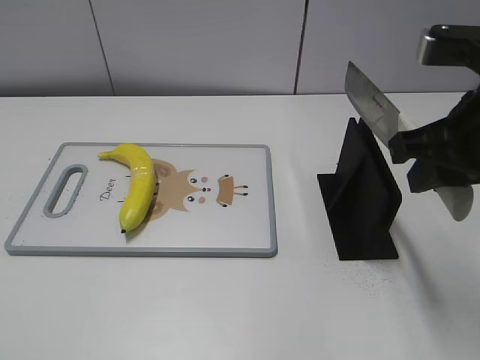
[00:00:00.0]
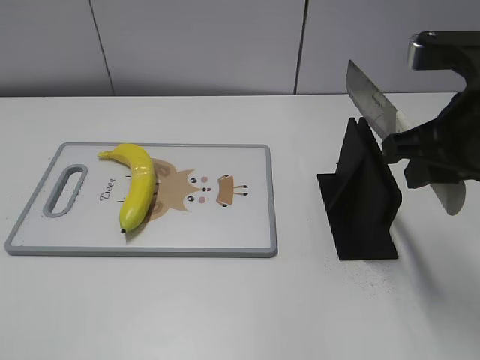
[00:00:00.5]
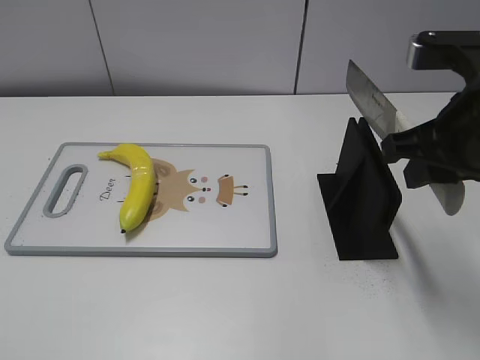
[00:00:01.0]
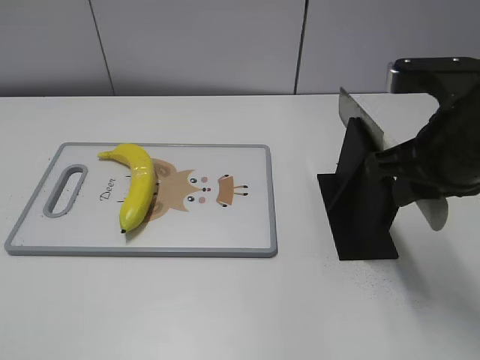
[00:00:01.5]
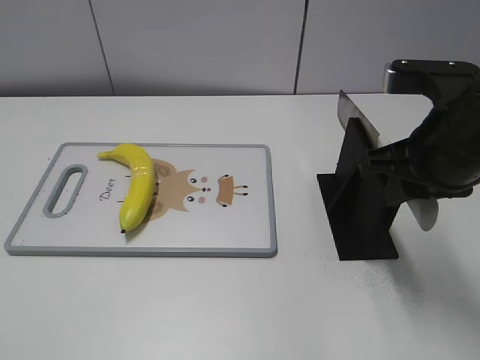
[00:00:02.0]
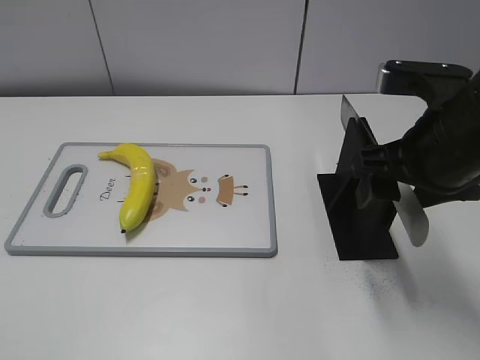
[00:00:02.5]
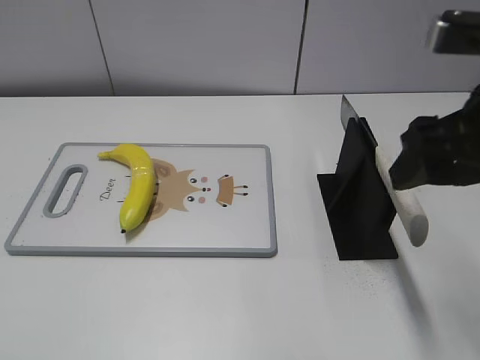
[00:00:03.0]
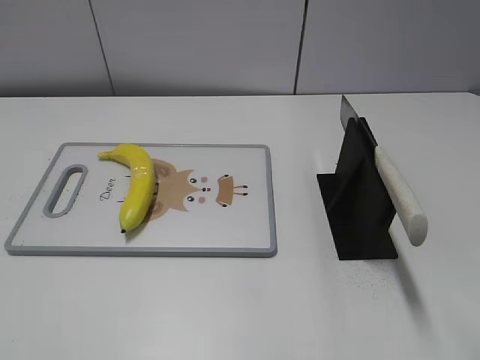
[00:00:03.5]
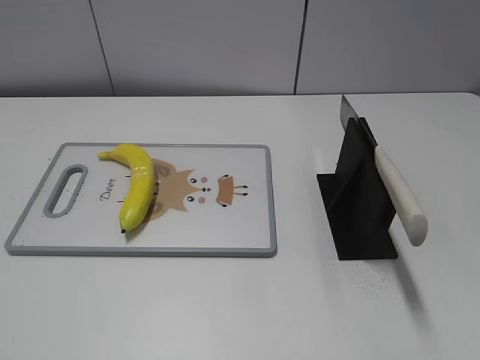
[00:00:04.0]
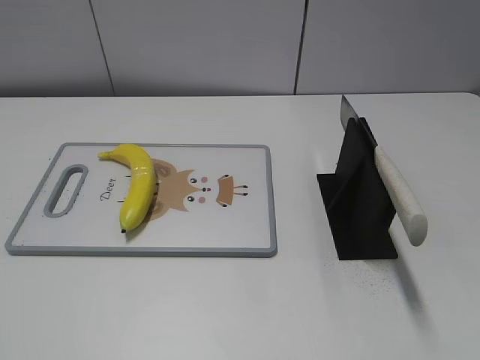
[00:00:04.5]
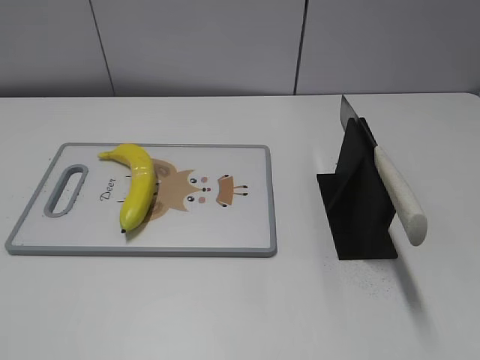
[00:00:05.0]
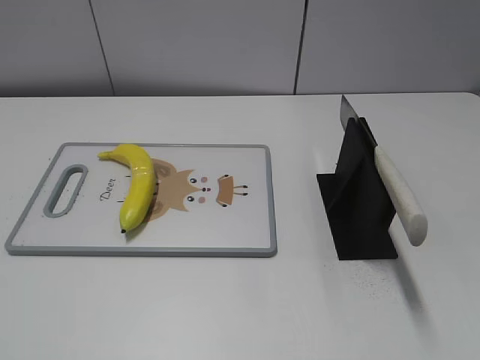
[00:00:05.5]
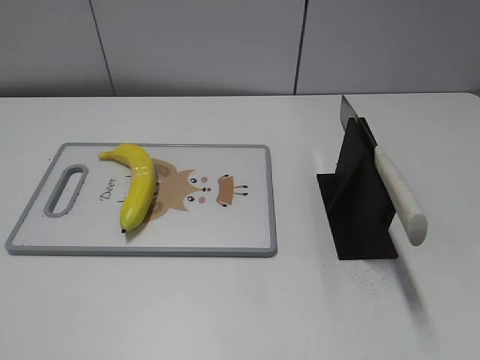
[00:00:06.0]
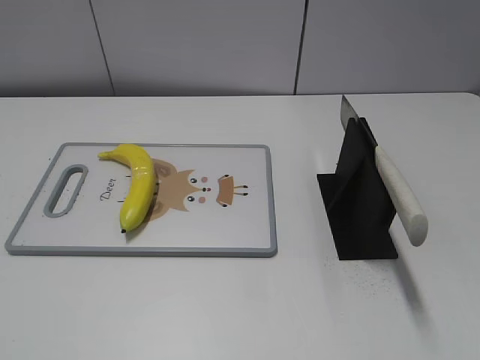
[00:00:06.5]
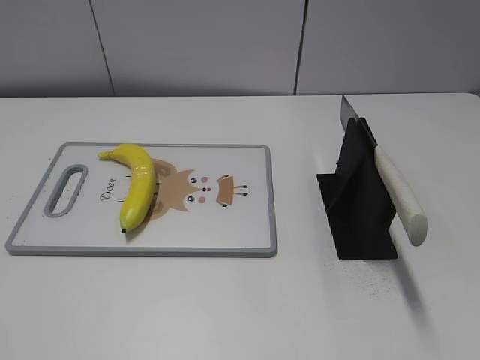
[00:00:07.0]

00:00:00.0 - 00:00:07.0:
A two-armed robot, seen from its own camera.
Task of the whole recording: cut plastic banana.
Step, 00:00:00.0 - 00:00:07.0: Place the knife on the storage rack with your right hand.
00:00:00.0 - 00:00:02.0: The grippers stay close to where they were, moving slightly.
00:00:02.0 - 00:00:03.5: The right gripper goes approximately 15 cm upward and backward, and opens up.

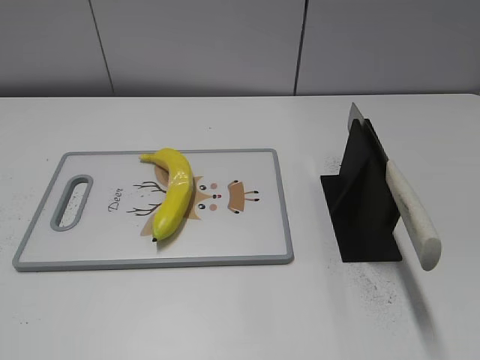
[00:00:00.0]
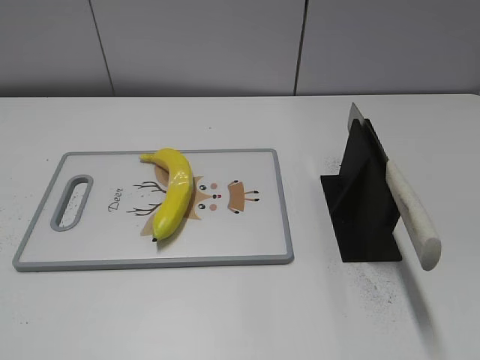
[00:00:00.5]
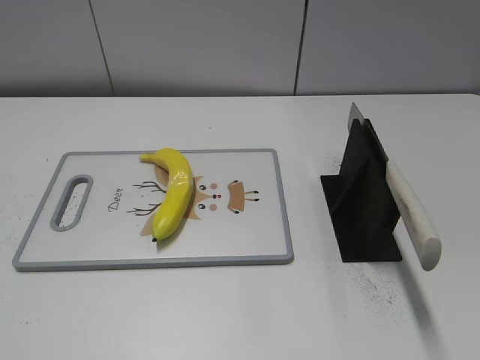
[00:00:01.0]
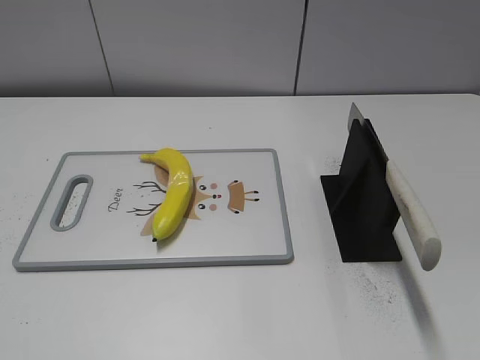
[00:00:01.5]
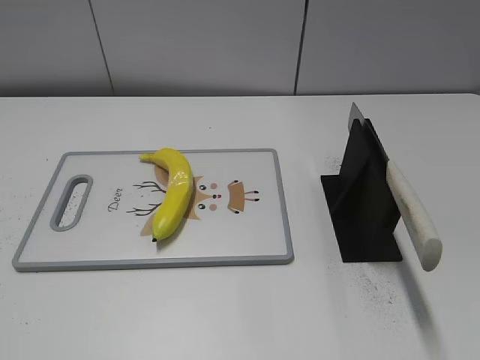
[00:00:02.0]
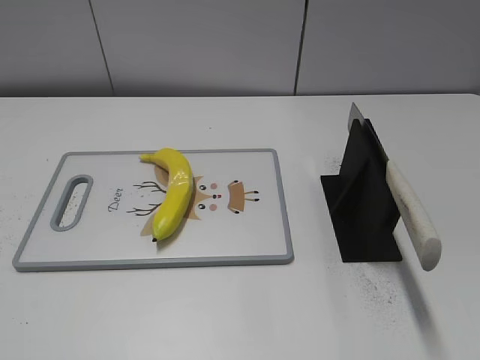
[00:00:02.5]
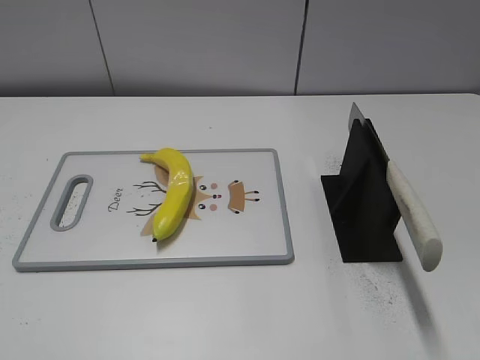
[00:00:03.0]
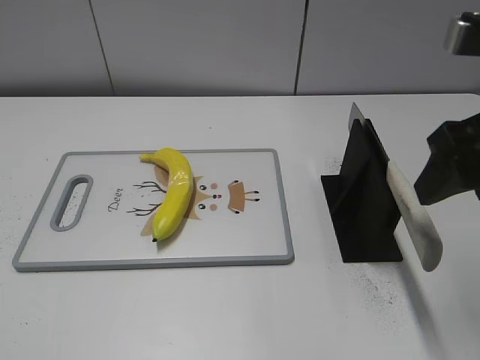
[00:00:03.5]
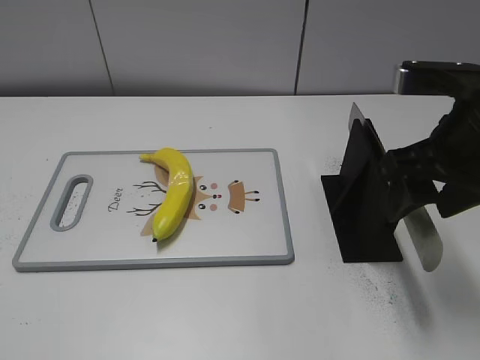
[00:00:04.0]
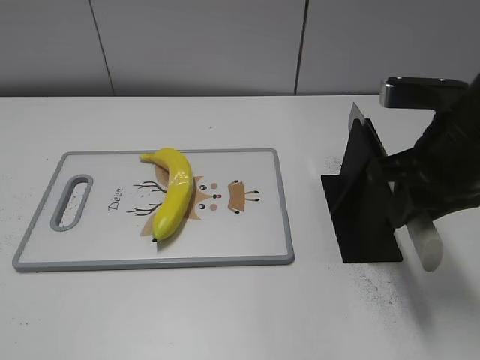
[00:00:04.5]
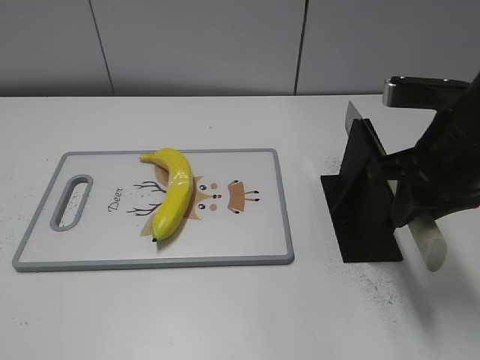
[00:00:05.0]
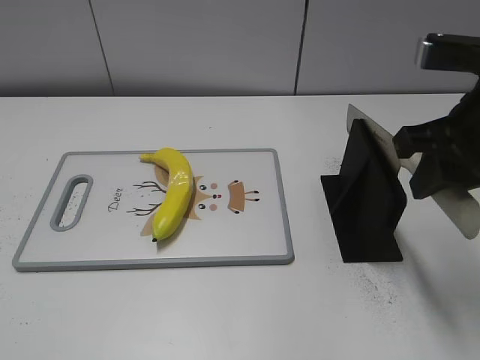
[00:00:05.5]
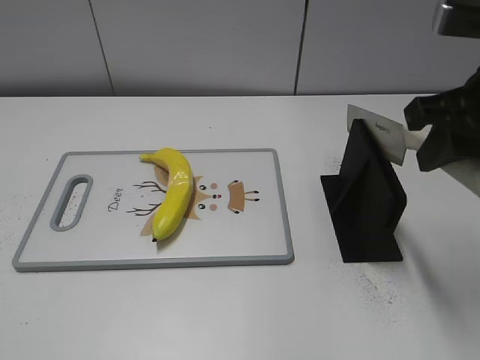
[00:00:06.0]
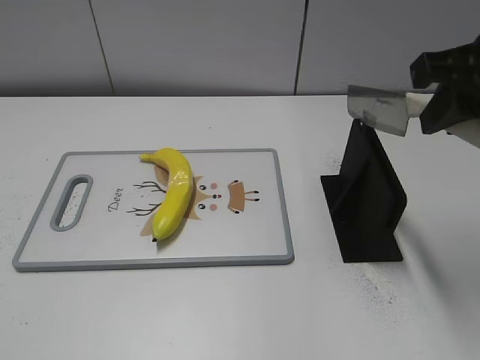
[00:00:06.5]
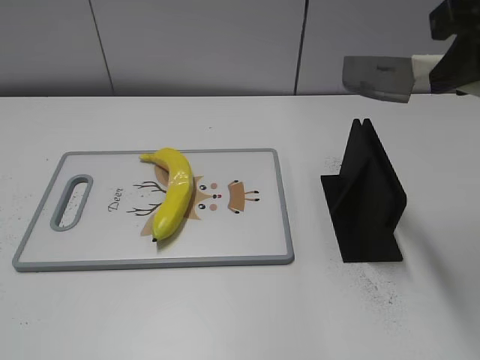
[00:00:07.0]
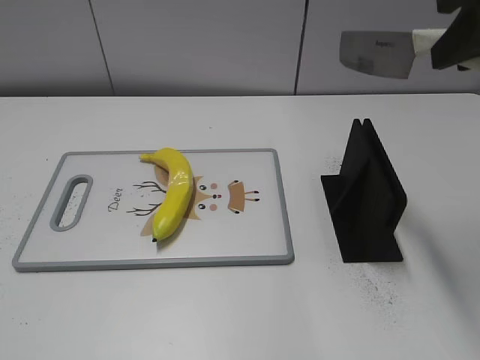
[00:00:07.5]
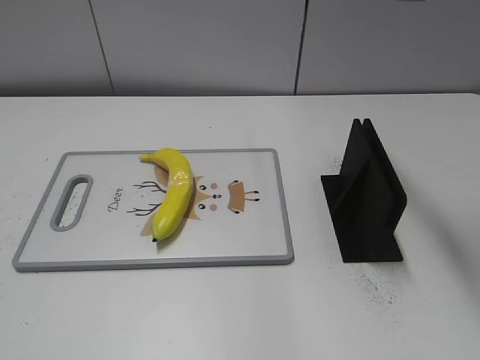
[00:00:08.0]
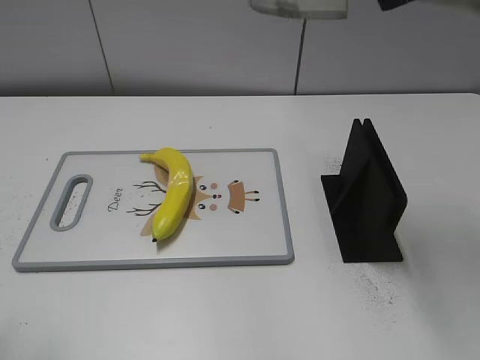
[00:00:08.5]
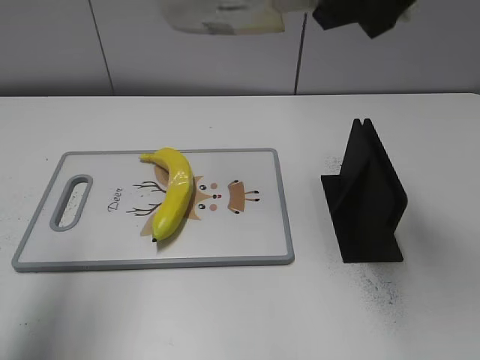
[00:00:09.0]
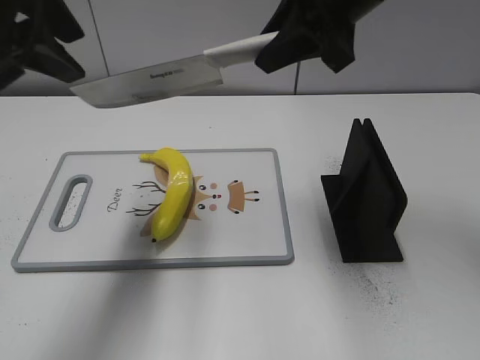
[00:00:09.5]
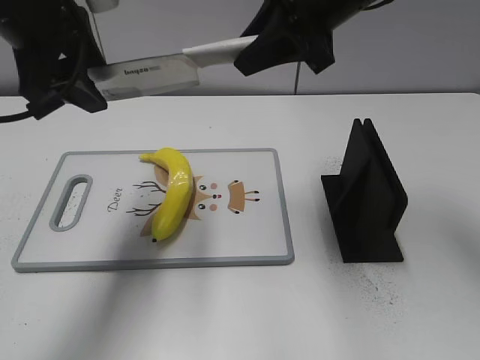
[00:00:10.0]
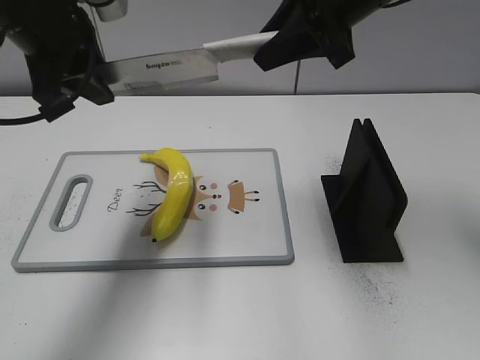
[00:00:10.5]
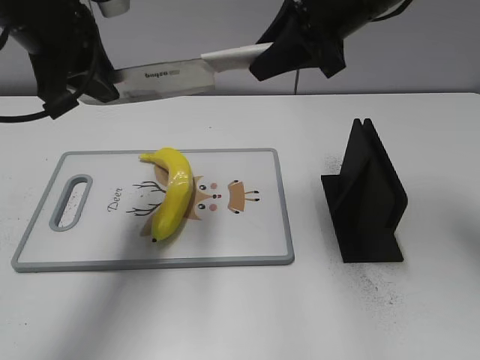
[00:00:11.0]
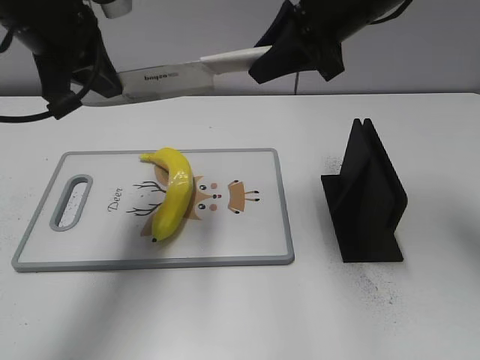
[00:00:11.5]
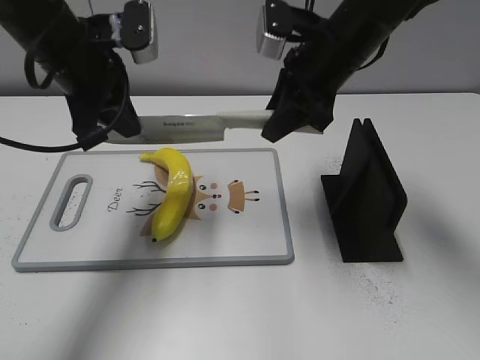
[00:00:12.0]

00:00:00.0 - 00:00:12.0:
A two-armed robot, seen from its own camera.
Task of the whole recording: cut plastic banana.
Step, 00:00:00.0 - 00:00:05.5: Grab the knife handle with your right hand.
00:00:02.0 - 00:00:04.0: The right gripper goes about 25 cm forward and to the left.
00:00:04.0 - 00:00:06.0: The right gripper closes its fingers.
00:00:06.0 - 00:00:08.0: The right gripper goes some 15 cm upward.
00:00:08.0 - 00:00:10.0: The right gripper heads forward, to the left and downward, covering some 20 cm. Meanwhile the left gripper goes approximately 30 cm forward.
00:00:10.0 - 00:00:12.0: Both grippers move downward, about 5 cm. The left gripper closes.

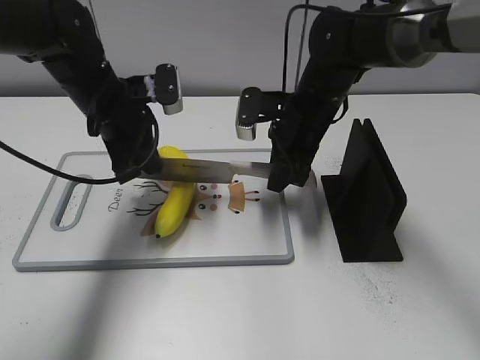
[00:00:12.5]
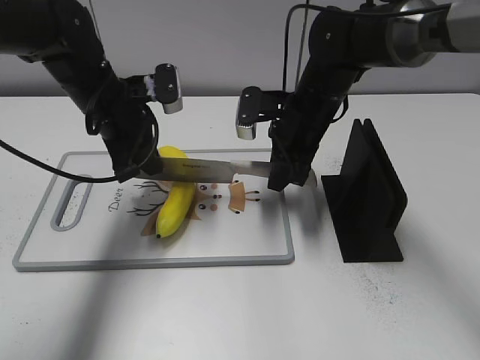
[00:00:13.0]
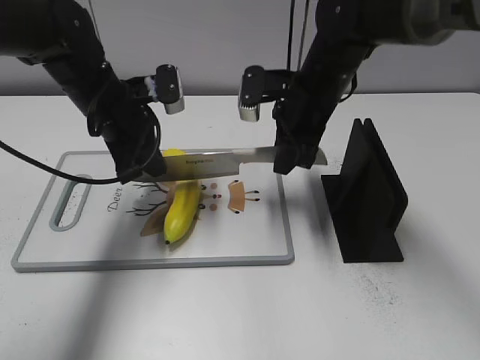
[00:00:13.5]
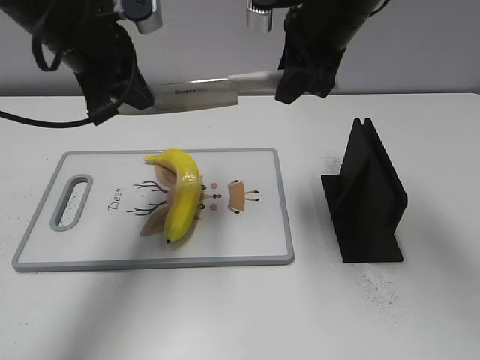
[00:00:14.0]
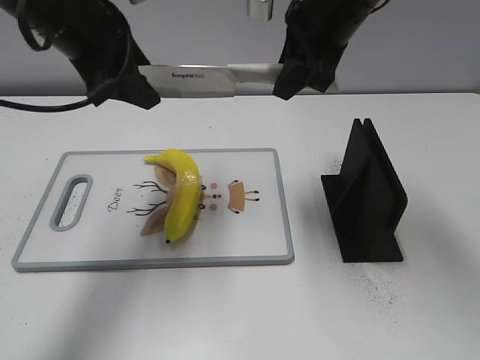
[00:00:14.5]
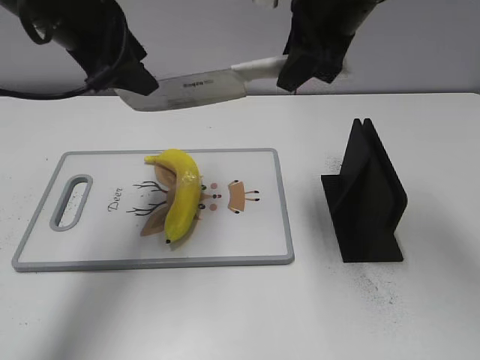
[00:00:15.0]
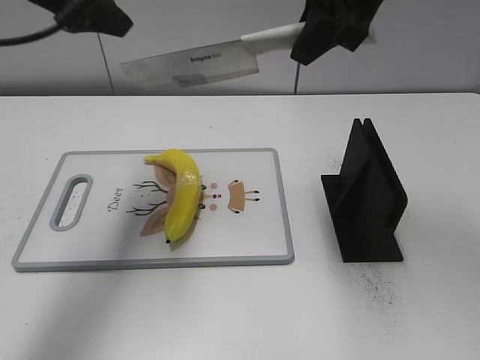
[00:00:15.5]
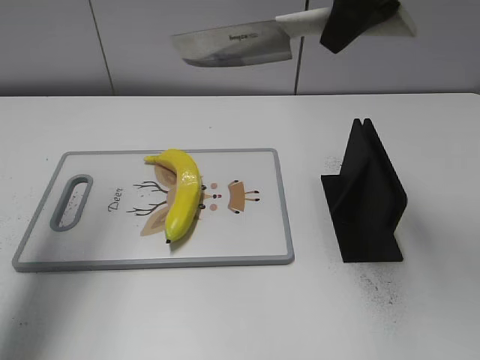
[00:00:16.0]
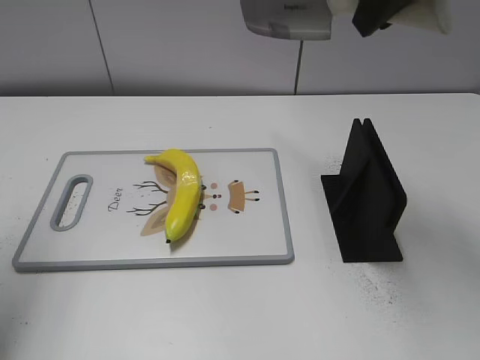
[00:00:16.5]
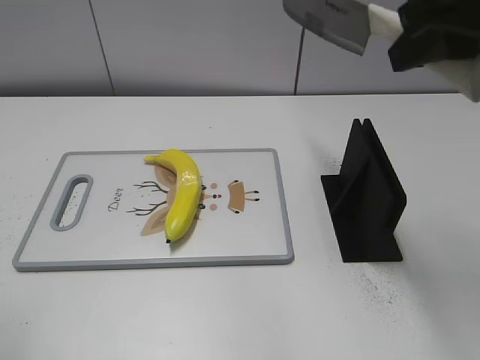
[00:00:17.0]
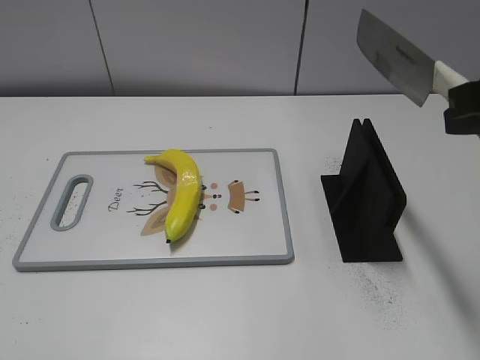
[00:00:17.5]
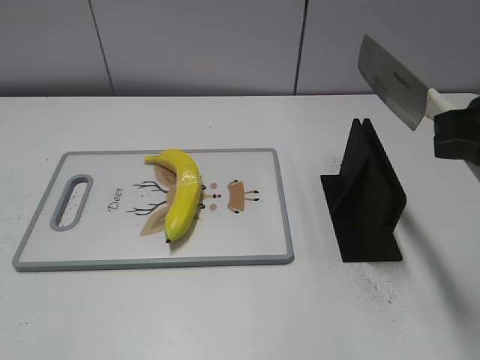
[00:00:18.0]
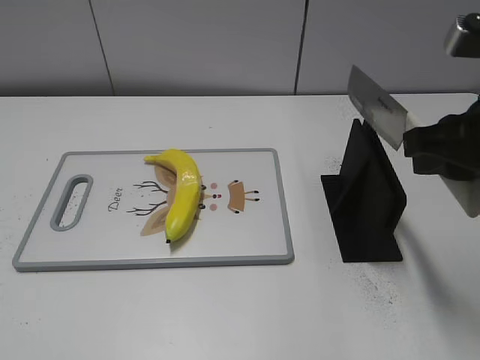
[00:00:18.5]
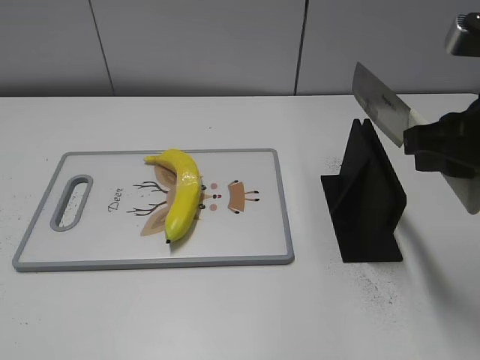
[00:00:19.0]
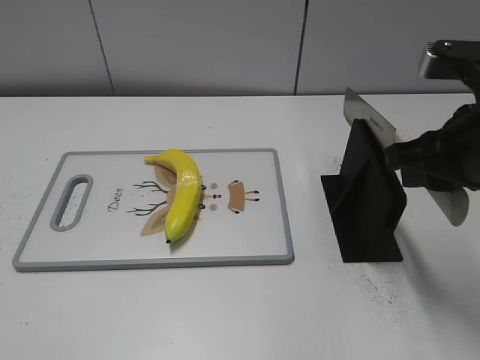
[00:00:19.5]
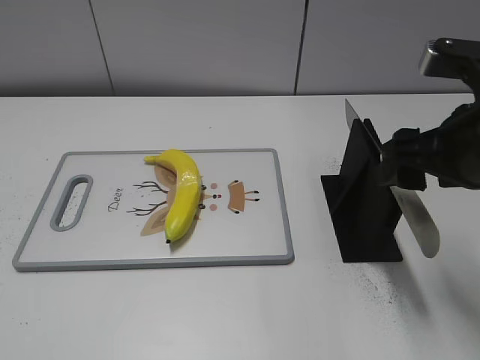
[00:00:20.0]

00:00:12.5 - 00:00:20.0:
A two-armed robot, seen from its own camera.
Task of the whole recording: cut plastic banana.
Step, 00:00:14.5 - 00:00:16.5: Cut the banana with your right hand.
00:00:12.5 - 00:00:14.5: The two grippers go about 15 cm upward. The left gripper opens.
00:00:14.5 - 00:00:16.5: The left gripper goes approximately 20 cm to the left, backward and upward. The right gripper is displaced upward and backward by about 10 cm.
00:00:16.5 - 00:00:18.0: The right gripper heads backward, downward and to the right, covering some 15 cm. Meanwhile the left gripper travels backward and downward by some 25 cm.
00:00:18.0 - 00:00:20.0: The right gripper moves some 5 cm, and opens.
